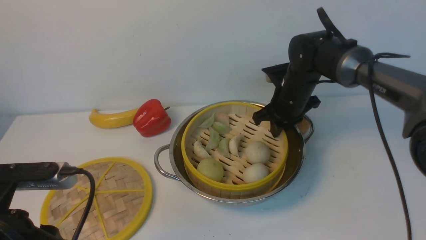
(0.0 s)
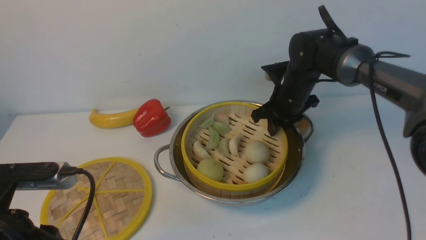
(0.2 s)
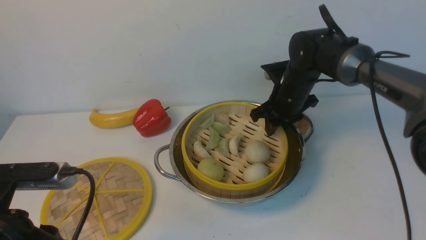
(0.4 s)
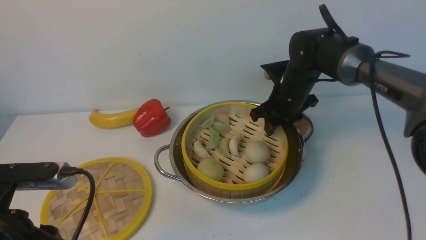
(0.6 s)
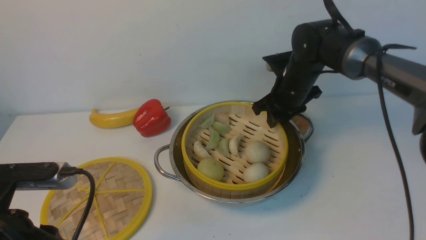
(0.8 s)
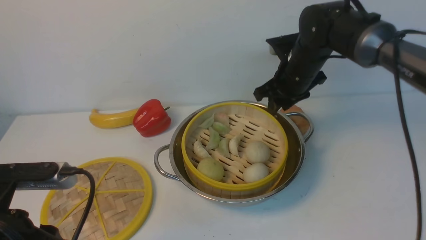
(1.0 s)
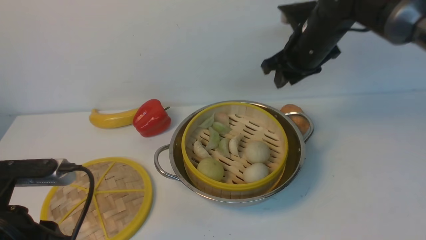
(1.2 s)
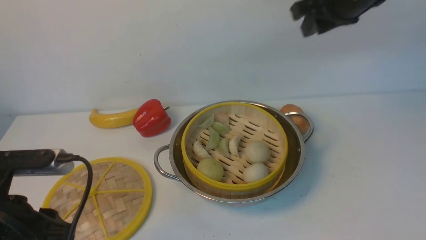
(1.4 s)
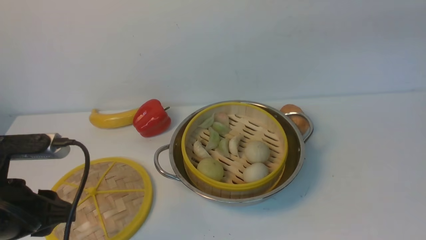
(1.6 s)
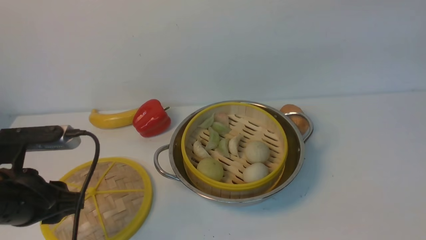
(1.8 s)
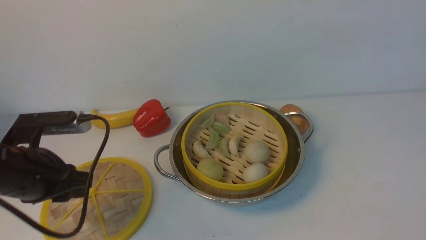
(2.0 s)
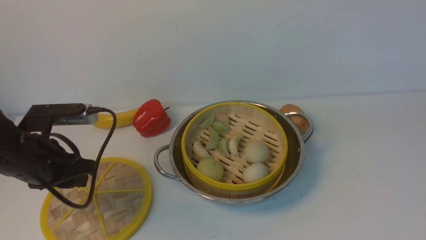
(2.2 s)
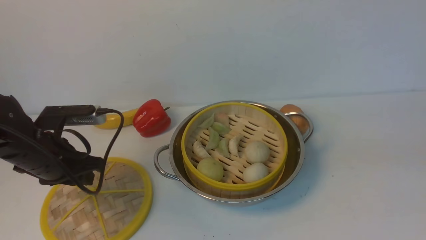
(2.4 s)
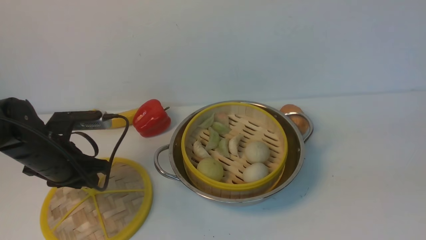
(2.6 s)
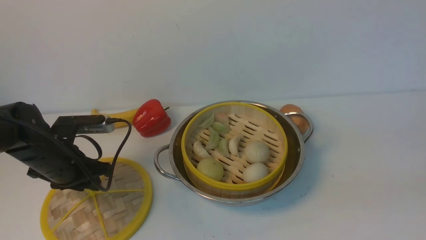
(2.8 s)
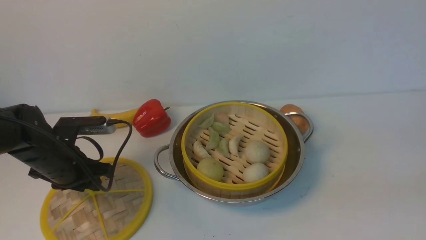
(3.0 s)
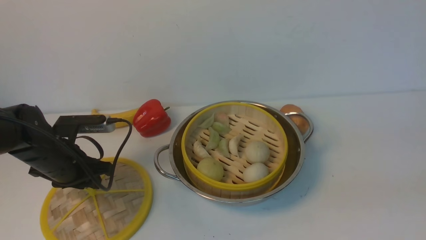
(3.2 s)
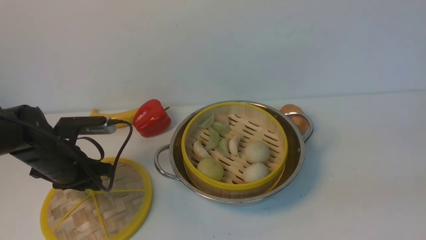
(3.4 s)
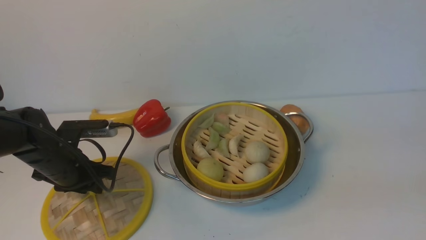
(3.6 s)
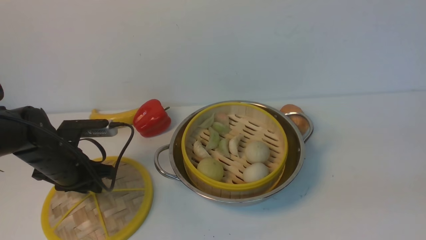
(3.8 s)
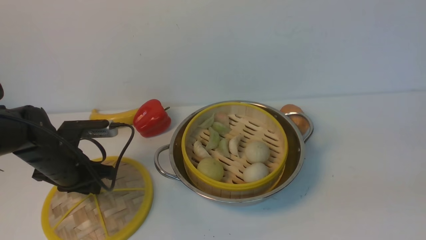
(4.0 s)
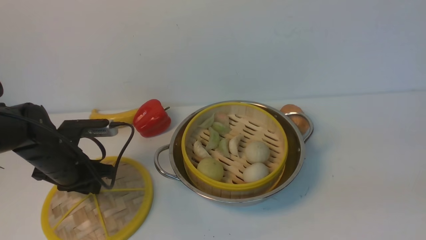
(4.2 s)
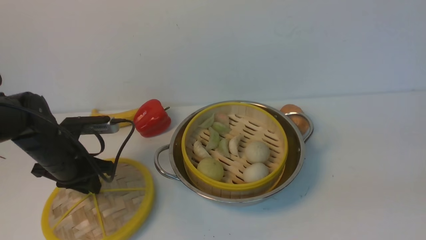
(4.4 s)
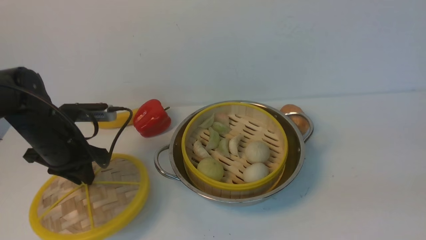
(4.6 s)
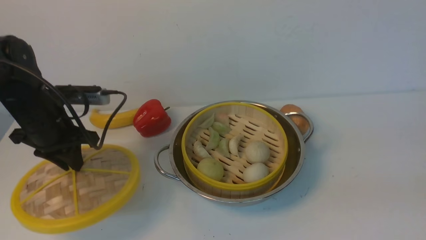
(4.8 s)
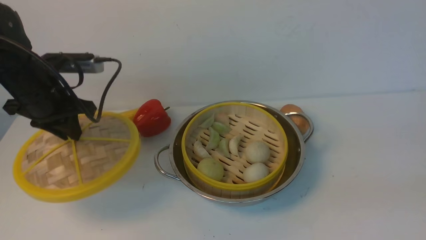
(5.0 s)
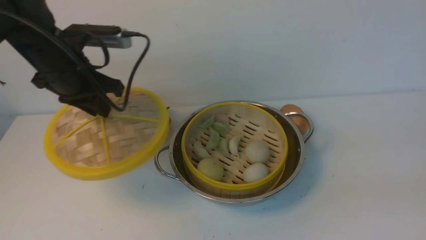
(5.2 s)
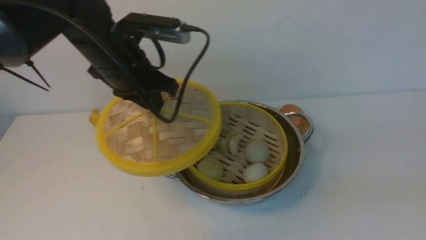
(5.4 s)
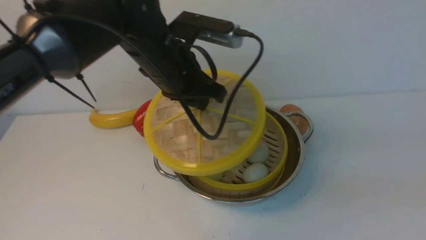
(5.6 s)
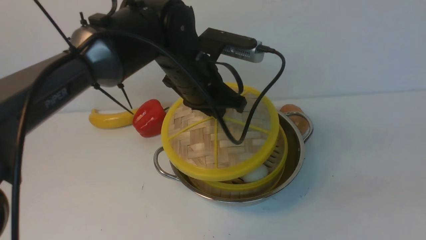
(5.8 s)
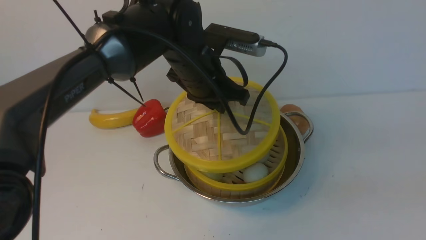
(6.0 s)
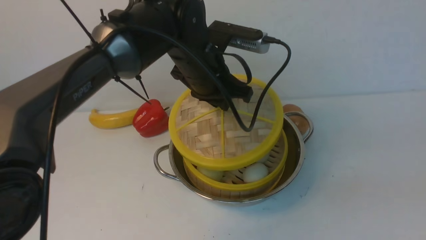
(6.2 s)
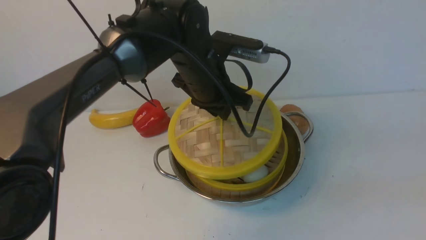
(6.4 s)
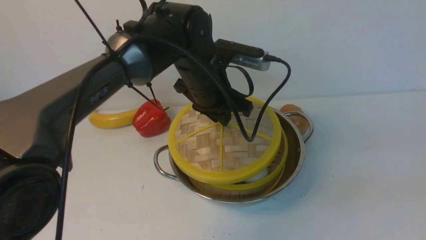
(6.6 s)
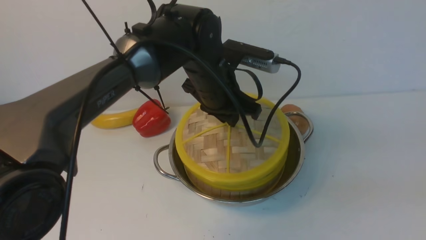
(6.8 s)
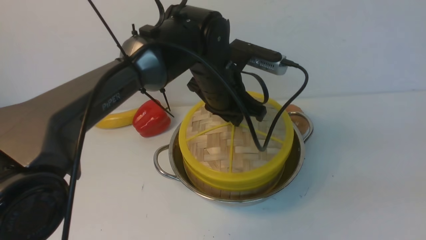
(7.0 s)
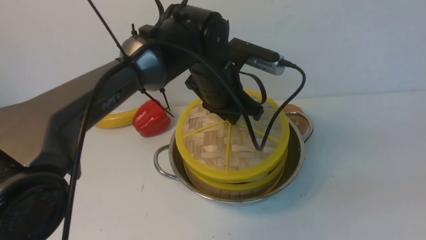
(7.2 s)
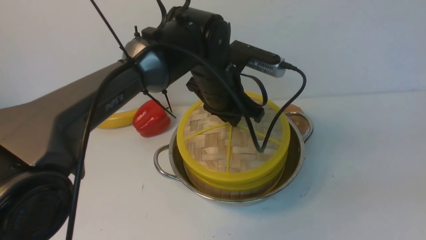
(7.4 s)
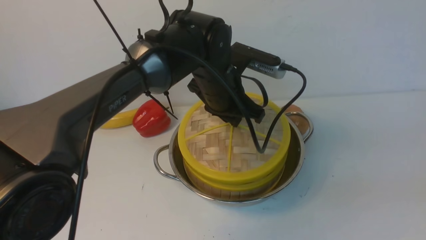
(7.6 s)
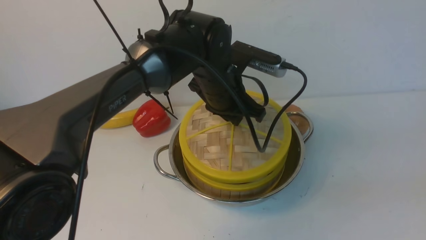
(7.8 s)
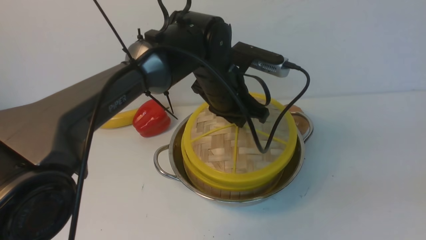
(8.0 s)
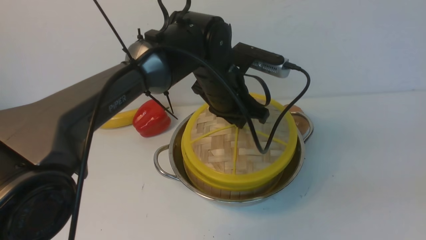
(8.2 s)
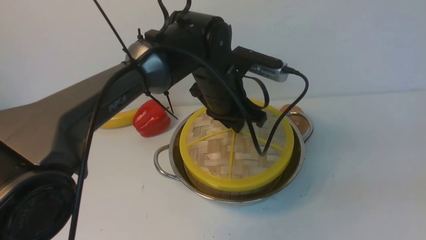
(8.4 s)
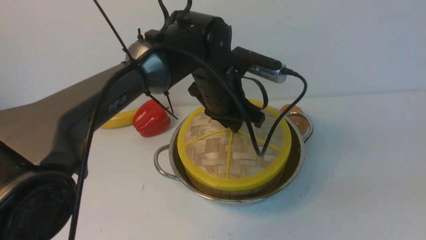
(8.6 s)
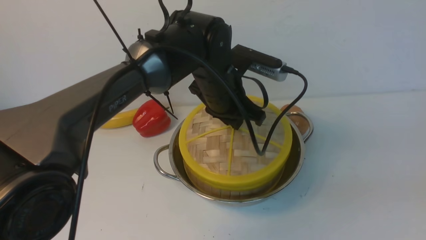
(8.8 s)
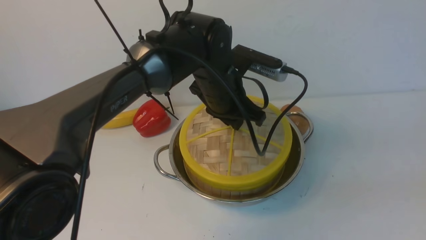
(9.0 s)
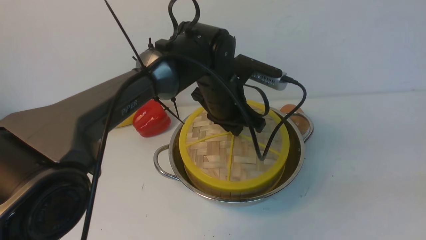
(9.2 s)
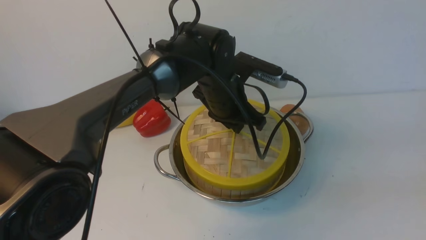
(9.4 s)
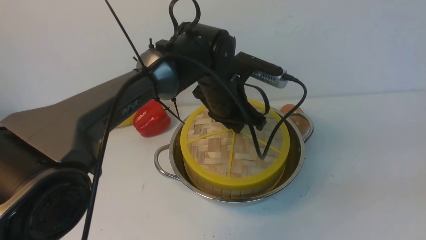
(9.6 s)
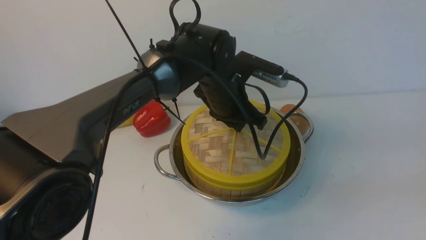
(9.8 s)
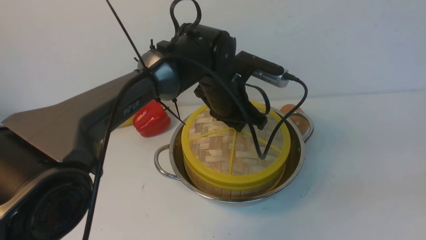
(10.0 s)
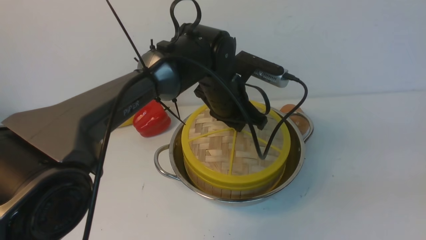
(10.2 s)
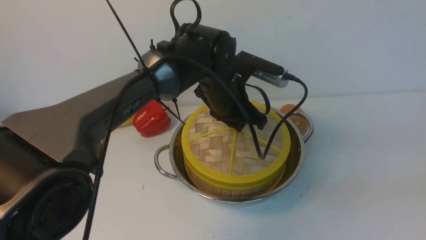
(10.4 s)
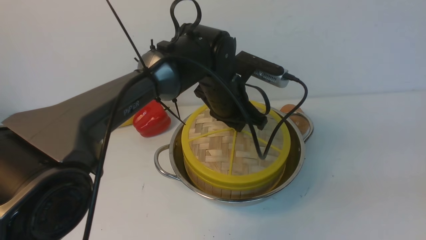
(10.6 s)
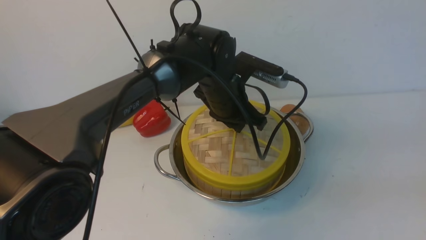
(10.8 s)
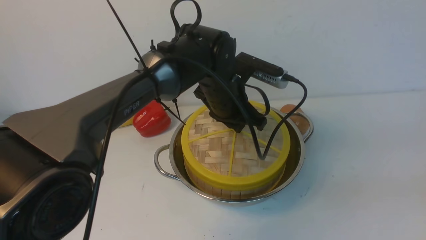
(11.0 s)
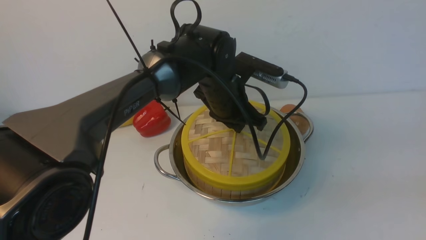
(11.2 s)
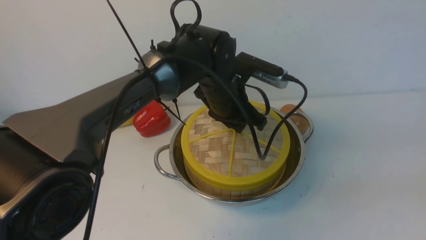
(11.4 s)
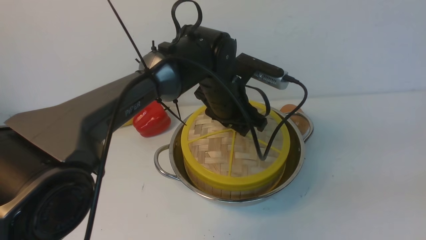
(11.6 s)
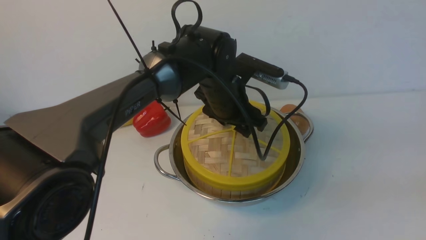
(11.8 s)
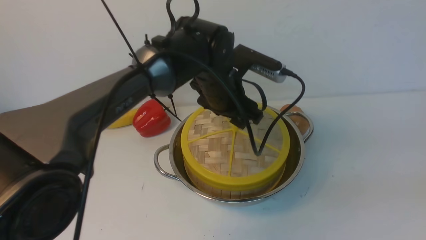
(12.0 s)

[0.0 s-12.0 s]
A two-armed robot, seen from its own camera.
Task of the whole recording: place the steamer in the pot on the white table, and put the lid on the steamer.
Step, 1.4 to 4.8 s: use the left arm to lift the lid of the steamer.
0.0 to 1.6 s: The right gripper travels upward, backward and to the right by about 35 cm.
1.6 to 3.0 s: The left gripper goes roughly 15 cm forward and downward, while the right gripper heads backward and downward, covering approximately 30 cm, and closes its fingers.
3.0 to 4.4 s: The left gripper closes its fingers.
4.4 to 6.0 s: The left gripper heads to the right and upward, covering roughly 25 cm.
7.6 to 9.0 s: The two grippers keep their place.
9.0 to 10.4 s: There are only small adjustments of the grippers.
10.4 to 12.0 s: The left gripper opens its fingers.

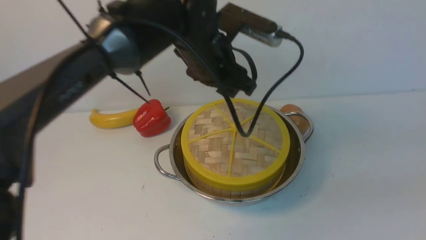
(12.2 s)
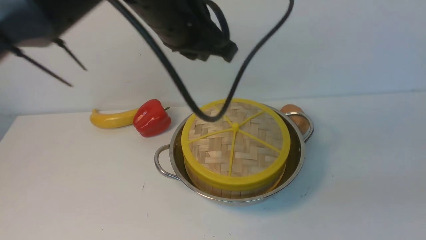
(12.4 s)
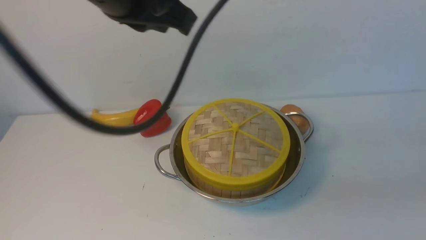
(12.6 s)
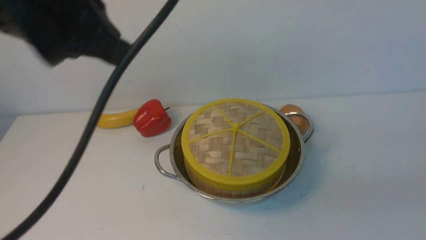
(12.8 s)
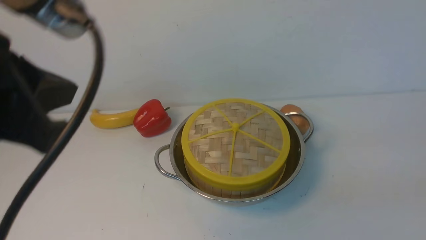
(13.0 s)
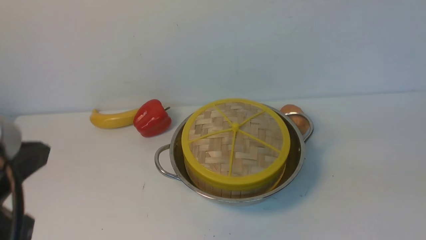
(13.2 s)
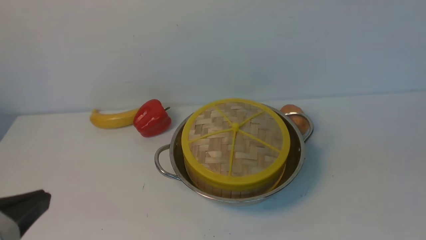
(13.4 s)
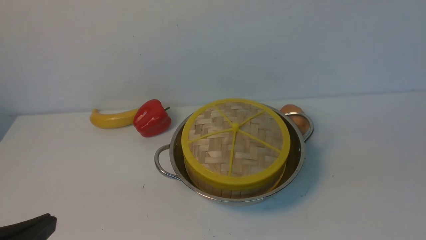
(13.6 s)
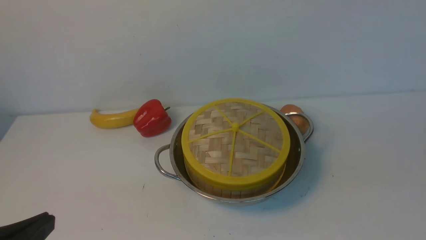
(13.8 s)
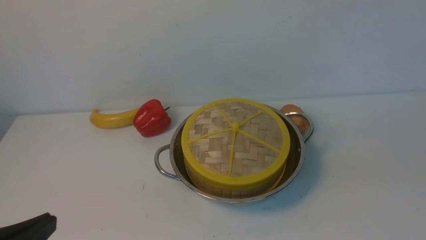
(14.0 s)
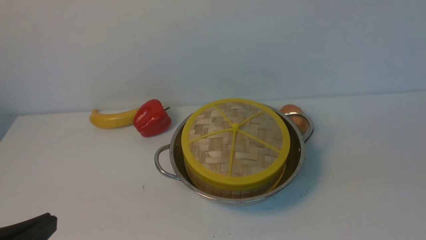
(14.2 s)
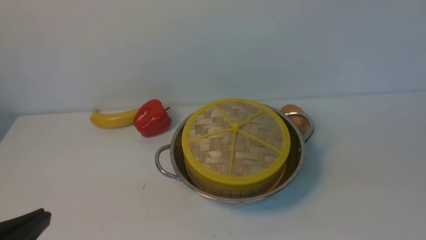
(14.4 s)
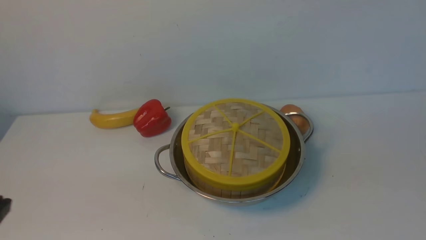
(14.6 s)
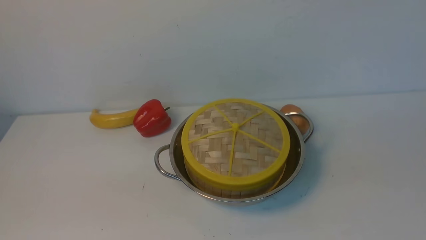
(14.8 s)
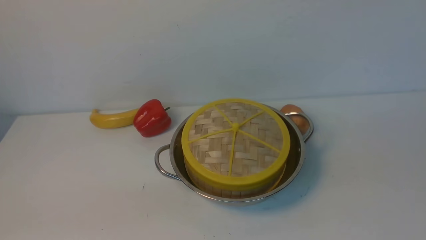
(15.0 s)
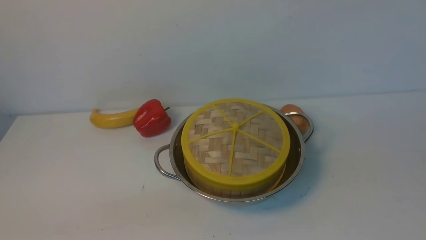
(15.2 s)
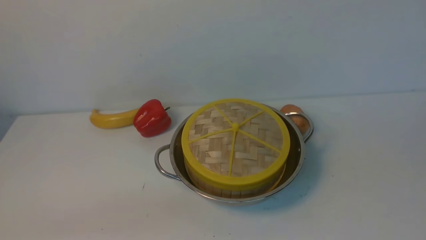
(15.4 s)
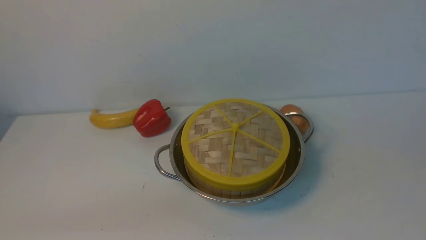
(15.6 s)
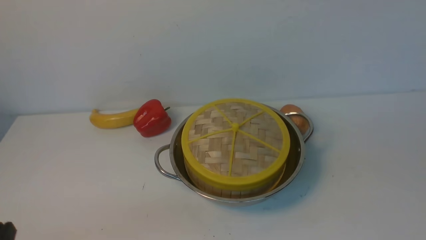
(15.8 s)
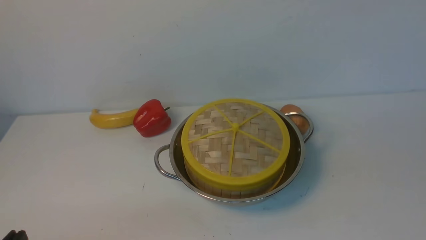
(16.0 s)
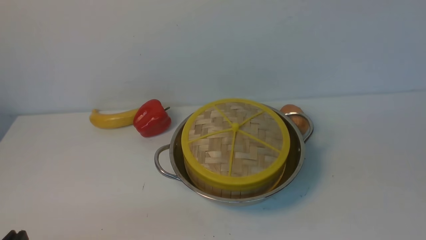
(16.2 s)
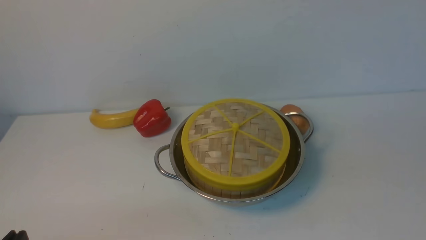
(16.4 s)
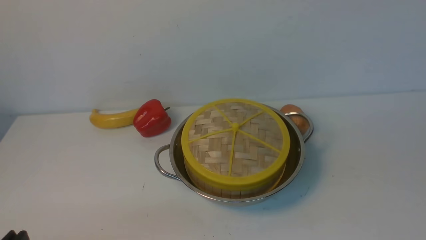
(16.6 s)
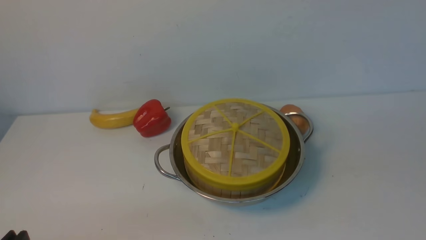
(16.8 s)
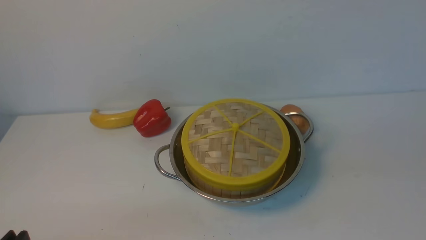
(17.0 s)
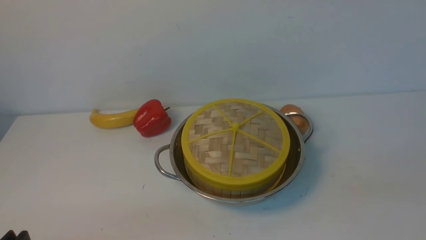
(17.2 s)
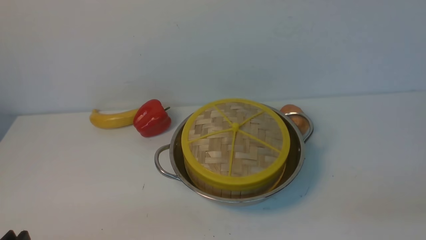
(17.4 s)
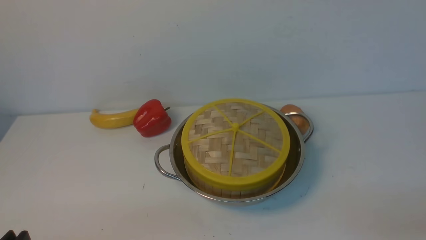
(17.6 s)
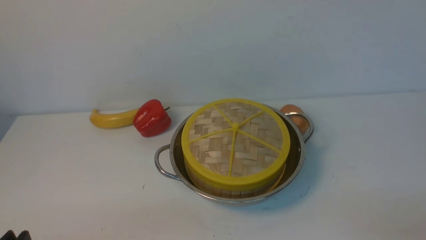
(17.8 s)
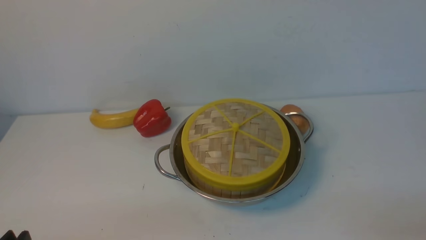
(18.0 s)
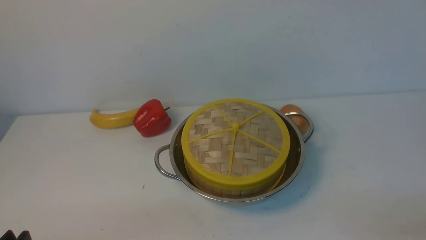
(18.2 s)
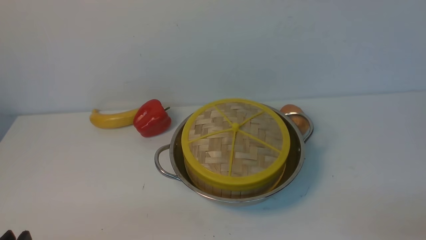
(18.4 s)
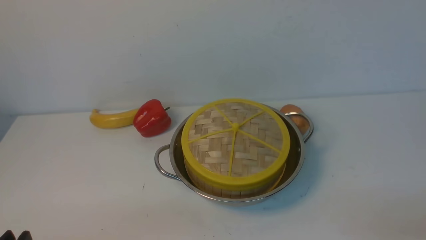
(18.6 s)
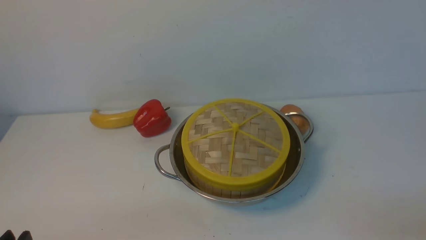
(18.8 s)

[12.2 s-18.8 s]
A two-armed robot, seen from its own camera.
Task of the whole recording: place the steamer in the pot on the white table, and put the lid on the steamer.
12.2 to 13.8 s: The left gripper travels backward and to the left by roughly 35 cm, and closes. The right gripper moves roughly 5 cm.
13.8 to 15.4 s: The left gripper travels downward by approximately 5 cm.
